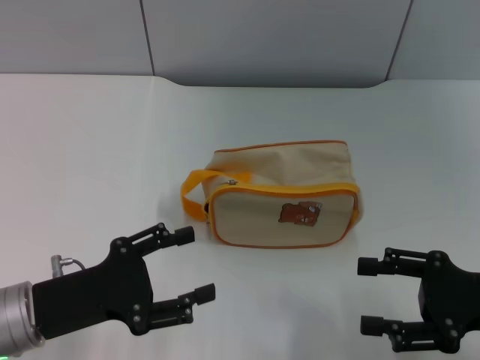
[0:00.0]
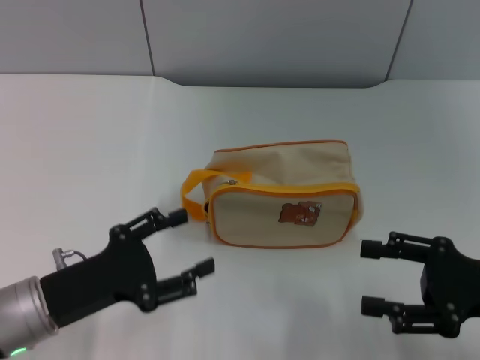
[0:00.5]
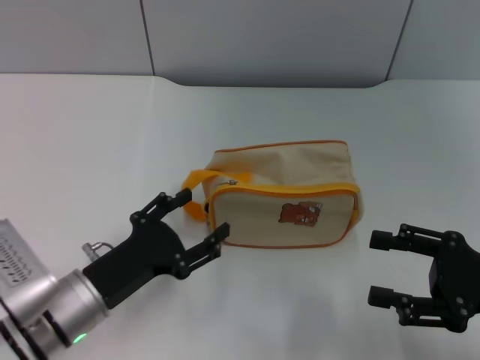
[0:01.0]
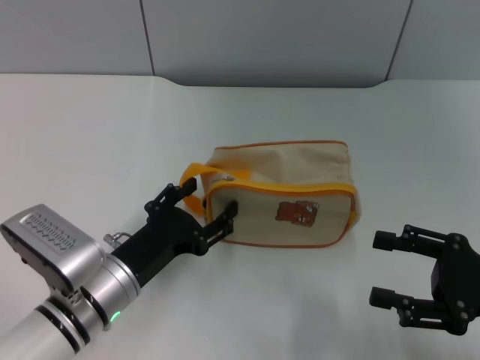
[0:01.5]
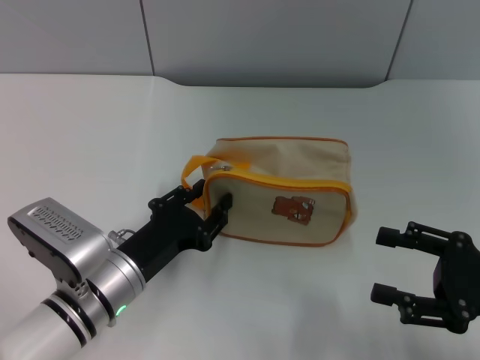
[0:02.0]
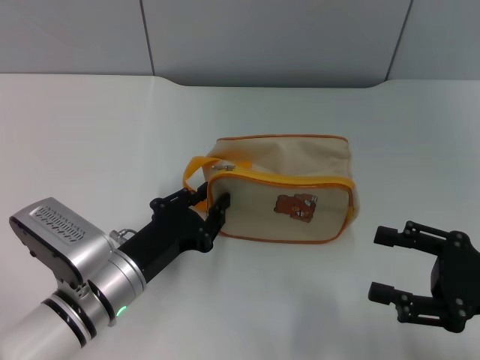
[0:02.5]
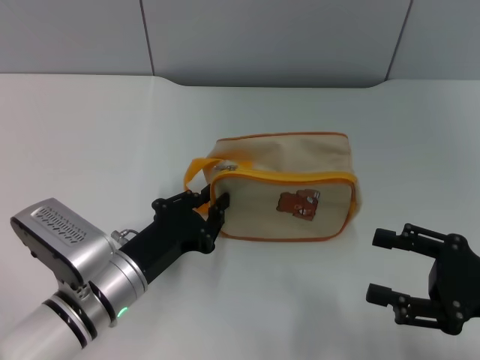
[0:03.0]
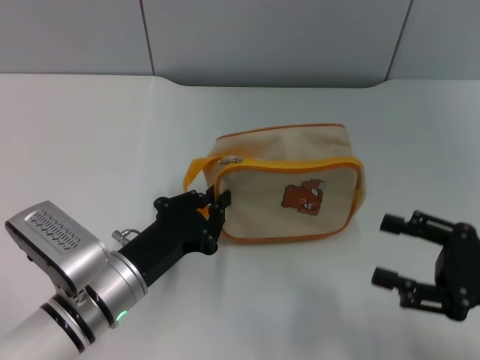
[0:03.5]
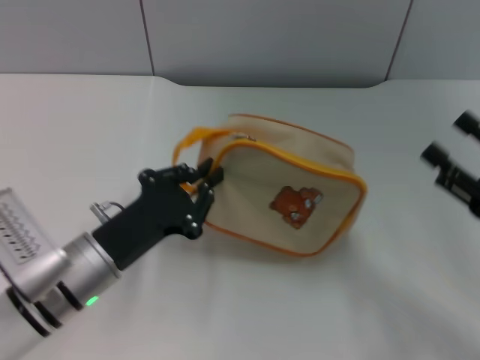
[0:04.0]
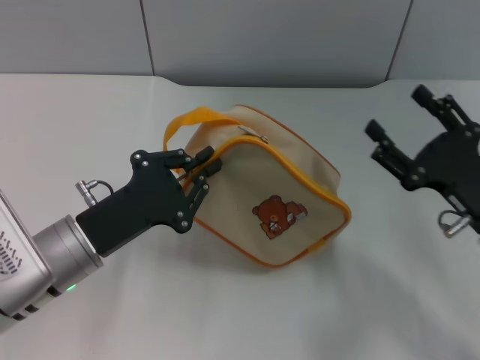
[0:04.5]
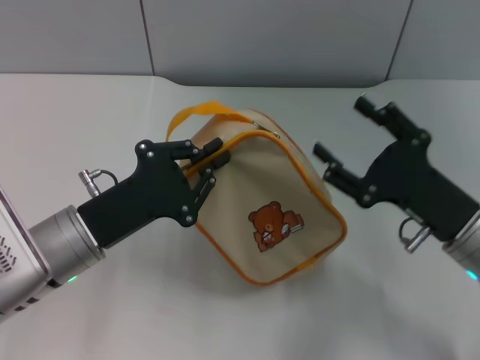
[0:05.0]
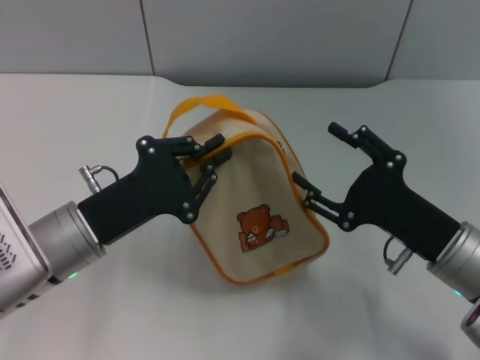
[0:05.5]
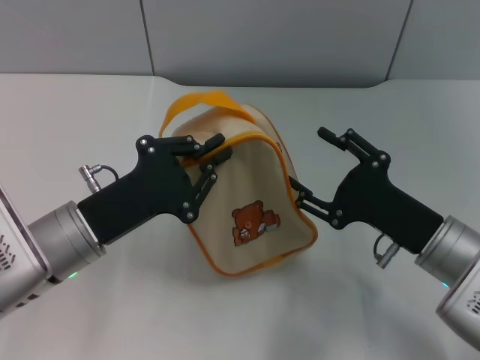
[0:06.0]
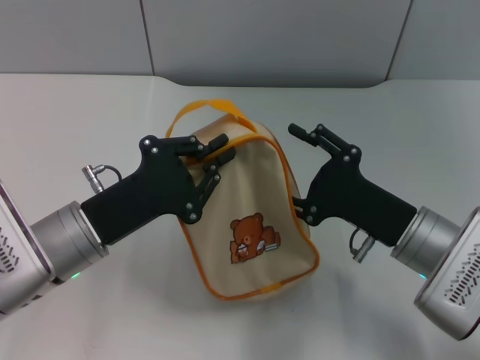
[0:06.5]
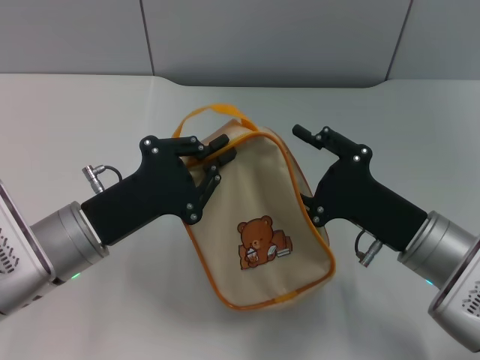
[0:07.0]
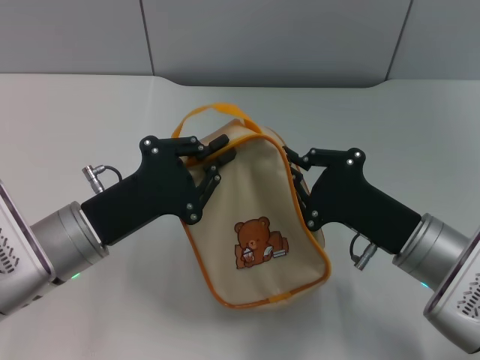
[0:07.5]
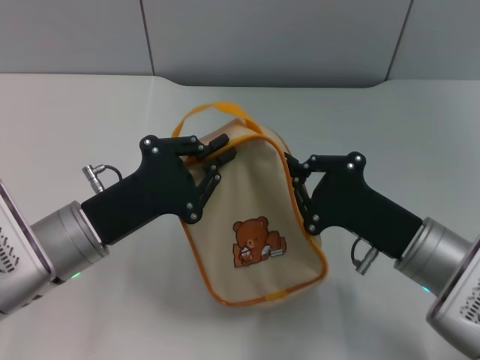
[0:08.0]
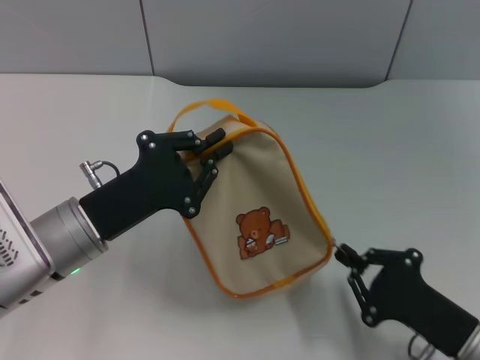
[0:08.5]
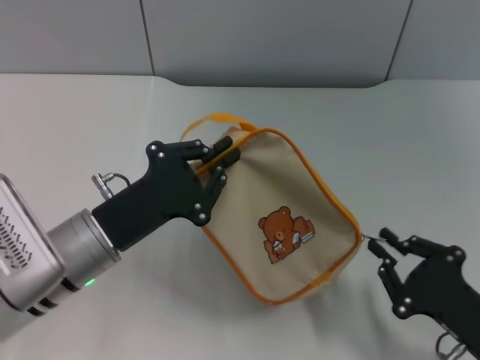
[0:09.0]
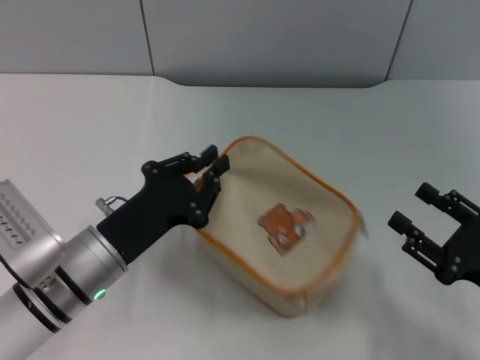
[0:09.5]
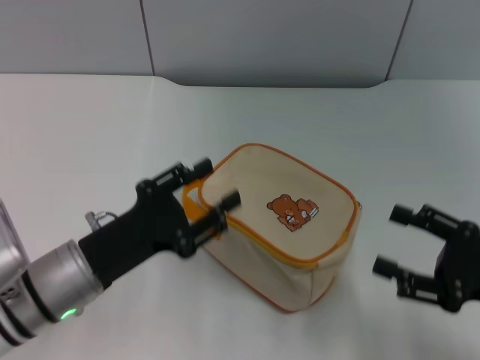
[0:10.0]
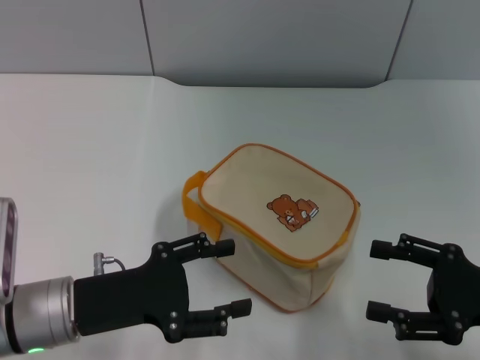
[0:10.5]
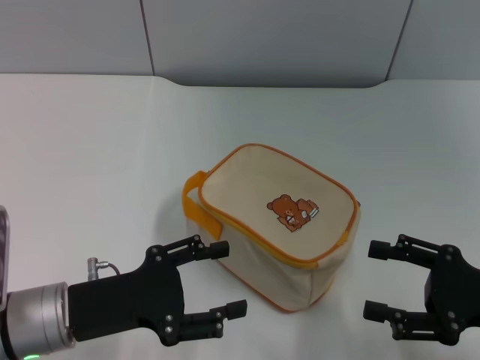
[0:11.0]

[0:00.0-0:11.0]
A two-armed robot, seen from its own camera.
Step, 0:00.0 to 0:04.0: Pick up the bag with left gripper.
Step, 0:04.5 to 0:09.0: Unzip the zipper of bag with right gripper.
0:00.0 to 0:02.0: The left gripper travels to the right by some 10 cm.
0:02.0 to 0:03.5: The left gripper closes.
0:03.5 to 0:05.5: The left gripper is displaced upward by some 5 cm; the right gripper is displaced to the left by about 10 cm.
0:05.5 to 0:07.5: The right gripper closes.
0:07.5 to 0:09.0: The right gripper shifts roughly 10 cm backward and to the right.
0:09.0 to 0:11.0: The right gripper travels upward by roughly 5 cm, and opens its fingers. The left gripper shifts by approximately 5 cm, and opens.

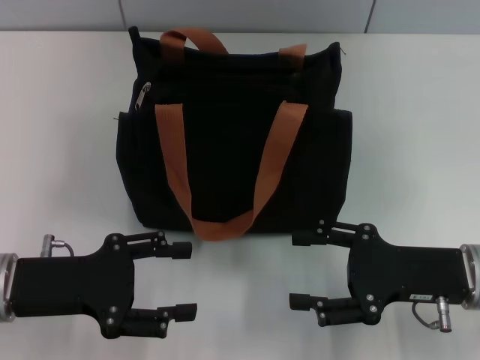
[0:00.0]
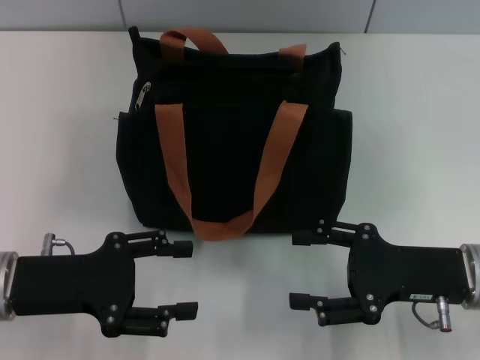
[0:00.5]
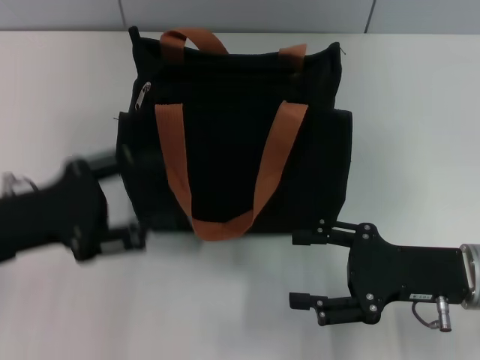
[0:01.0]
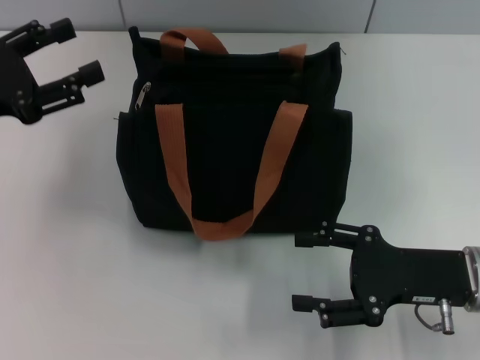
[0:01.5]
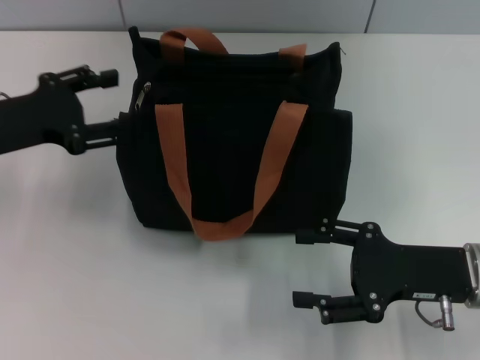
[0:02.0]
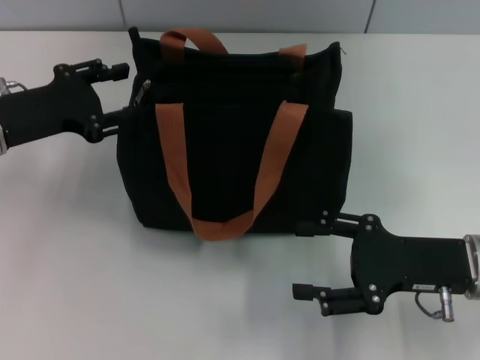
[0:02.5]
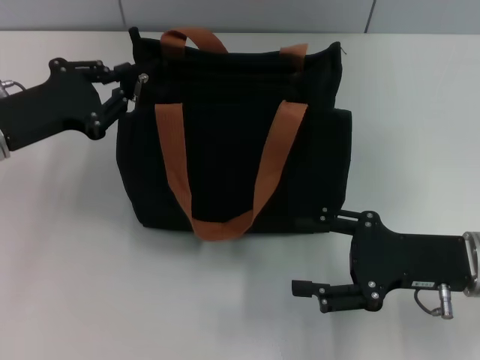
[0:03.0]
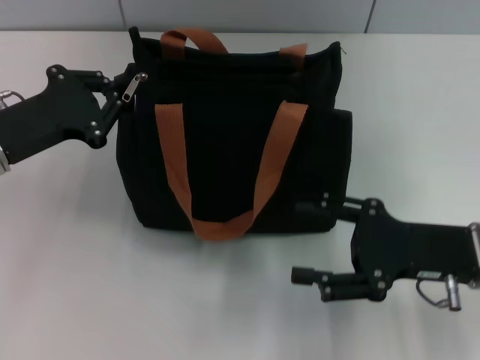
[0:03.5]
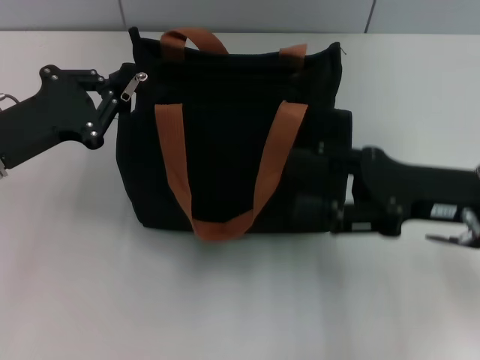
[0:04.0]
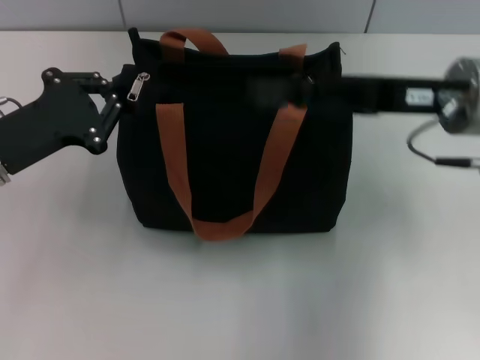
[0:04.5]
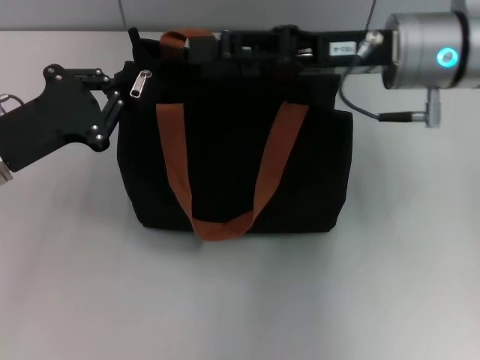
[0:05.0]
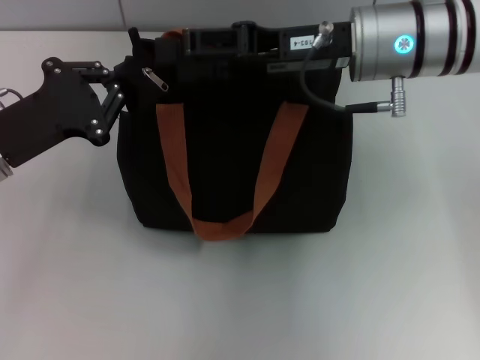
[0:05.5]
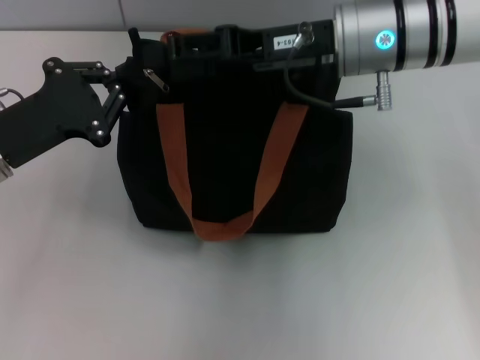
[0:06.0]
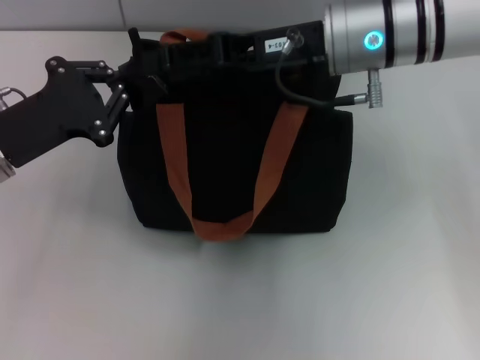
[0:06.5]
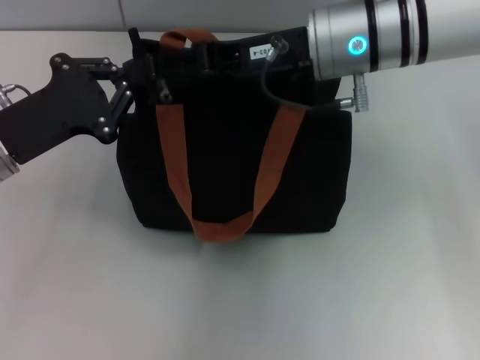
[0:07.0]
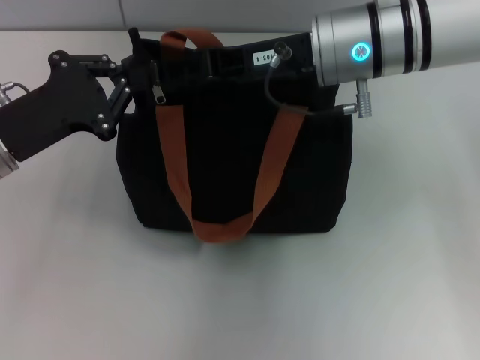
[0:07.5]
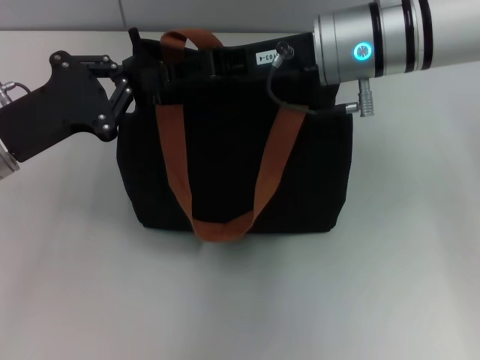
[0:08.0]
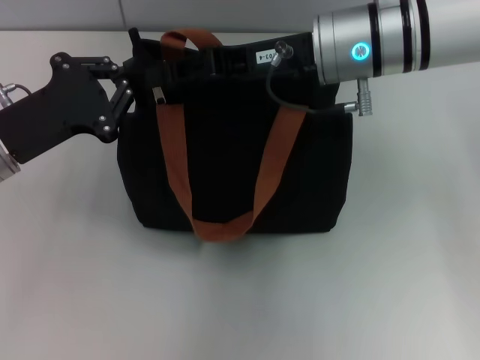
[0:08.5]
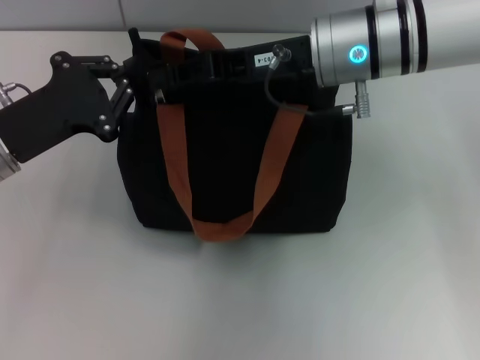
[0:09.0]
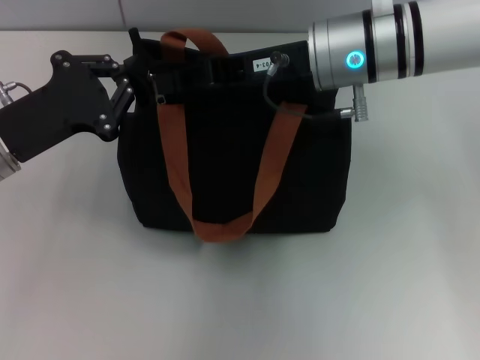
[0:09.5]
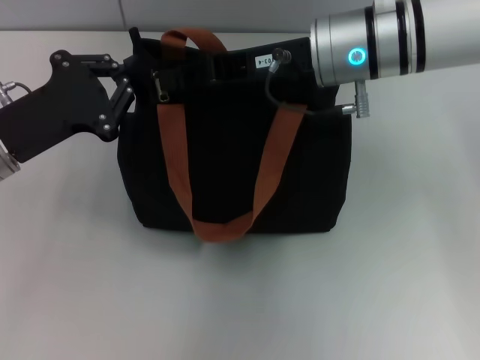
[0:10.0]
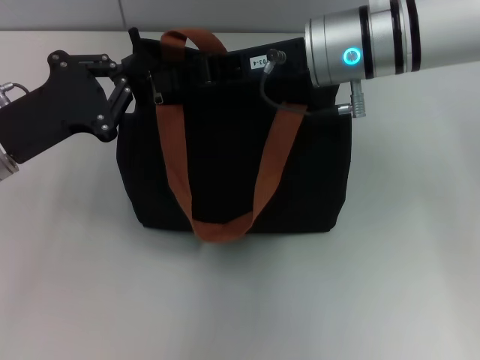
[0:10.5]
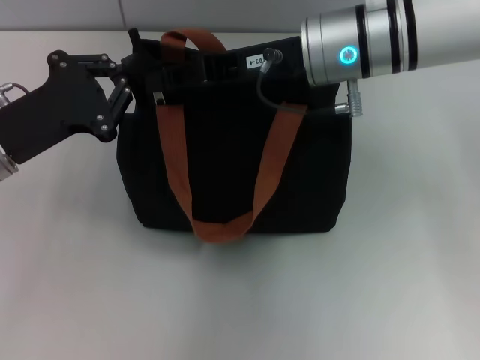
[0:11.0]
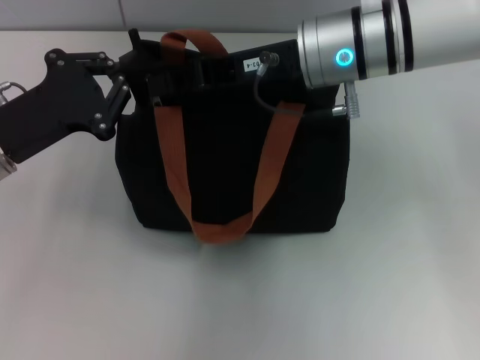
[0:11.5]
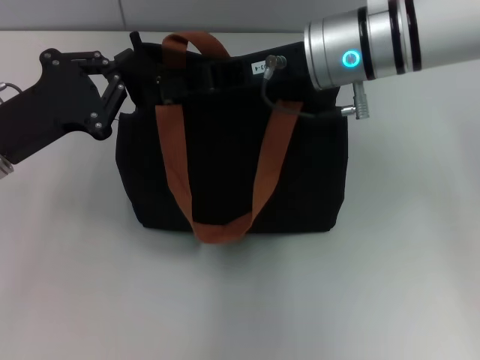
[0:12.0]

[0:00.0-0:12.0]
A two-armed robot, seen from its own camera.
0:00.0 to 0:02.0: The left gripper goes about 10 cm forward and upward.
0:02.0 to 0:04.0: The left gripper closes up. Meanwhile the right gripper is displaced upward by about 5 cm.
0:04.0 to 0:06.0: The right gripper is displaced to the left, forward and upward by roughly 20 cm.
0:06.0 to 0:08.0: The grippers make only small movements.
0:08.0 to 0:10.0: The right gripper closes up.
0:10.0 to 0:12.0: Both grippers stay put.

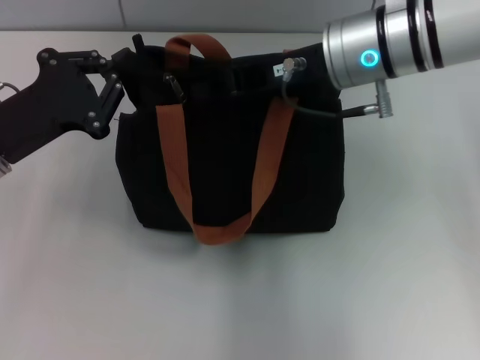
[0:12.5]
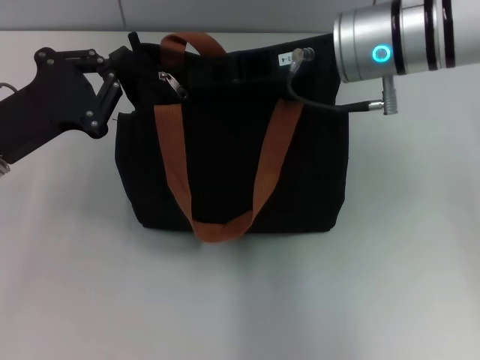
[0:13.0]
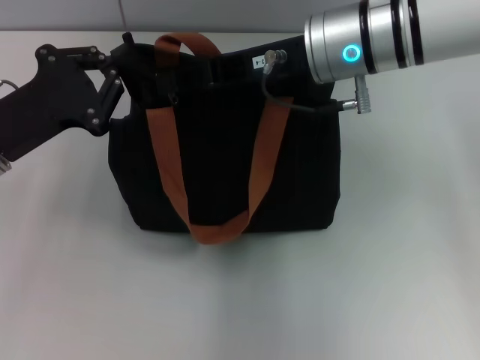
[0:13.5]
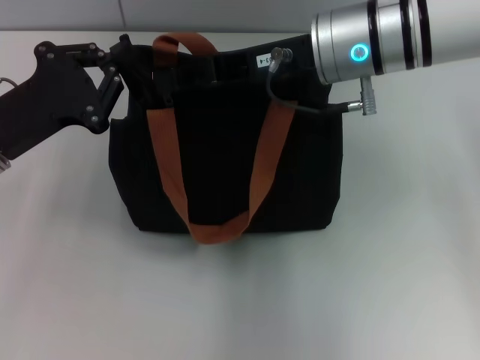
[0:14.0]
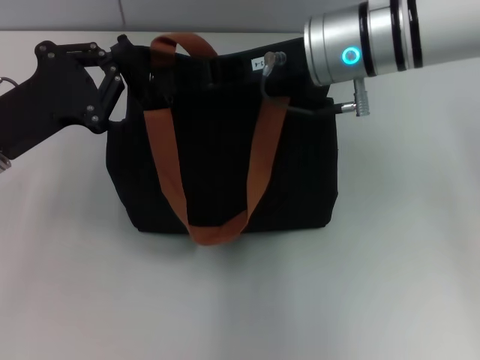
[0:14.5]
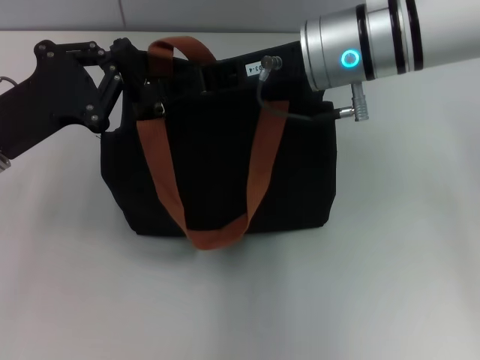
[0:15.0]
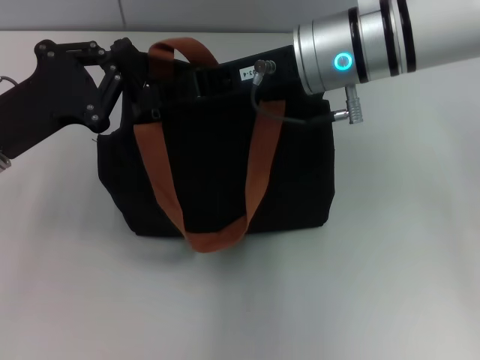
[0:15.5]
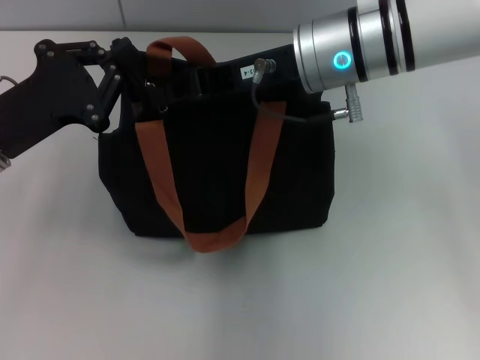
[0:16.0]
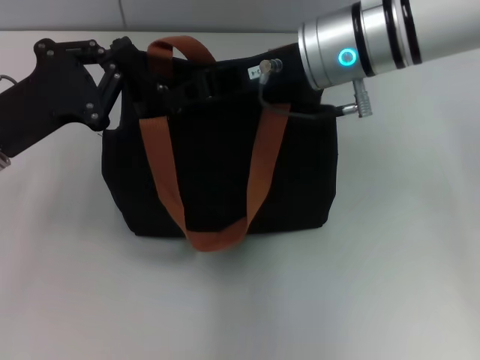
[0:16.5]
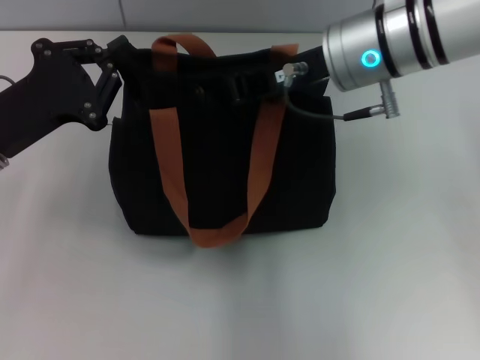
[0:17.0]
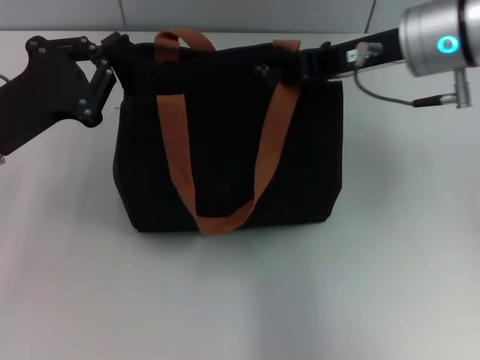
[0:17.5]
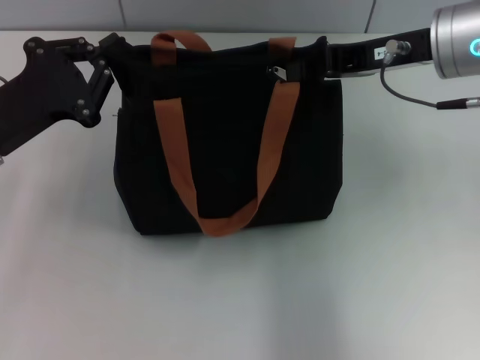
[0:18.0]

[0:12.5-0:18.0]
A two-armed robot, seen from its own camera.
0:12.5 to 0:16.0: There are only small adjustments of the grippers.
0:16.0 to 0:18.0: The right gripper shifts roughly 10 cm to the right.